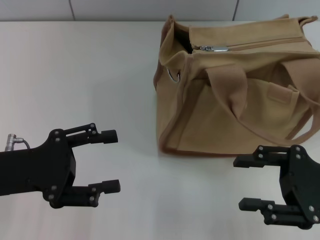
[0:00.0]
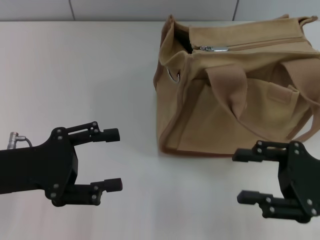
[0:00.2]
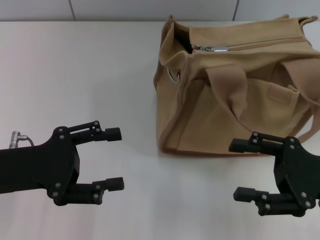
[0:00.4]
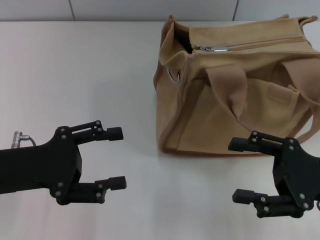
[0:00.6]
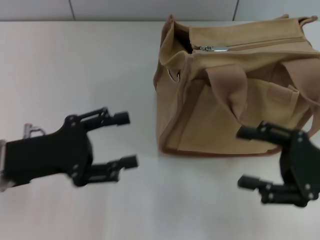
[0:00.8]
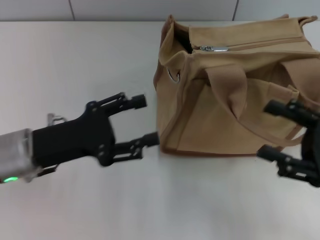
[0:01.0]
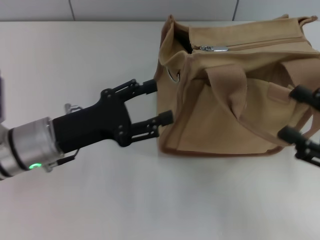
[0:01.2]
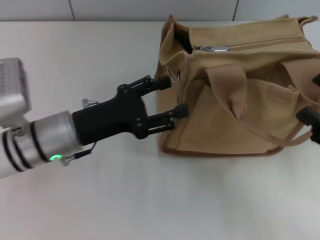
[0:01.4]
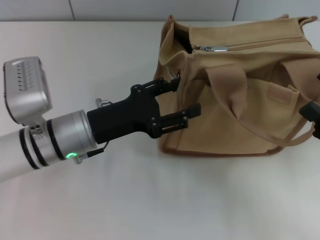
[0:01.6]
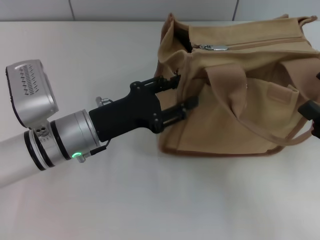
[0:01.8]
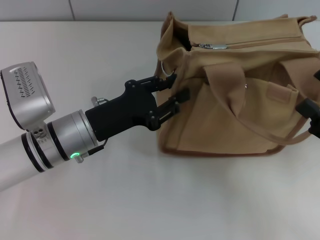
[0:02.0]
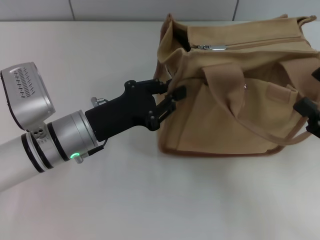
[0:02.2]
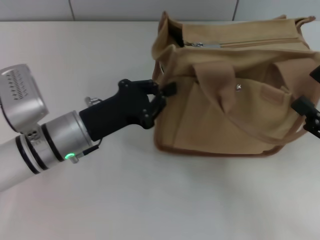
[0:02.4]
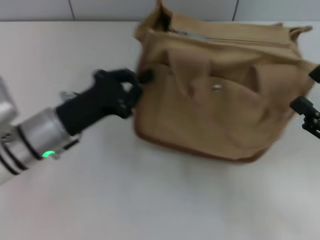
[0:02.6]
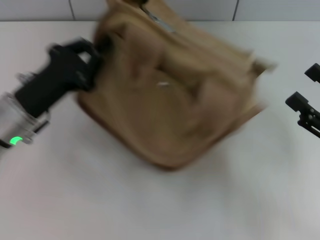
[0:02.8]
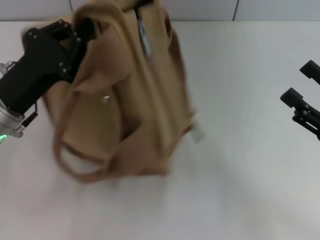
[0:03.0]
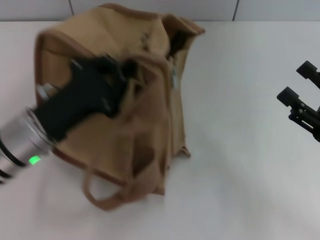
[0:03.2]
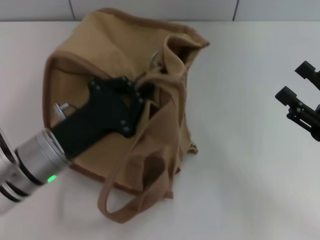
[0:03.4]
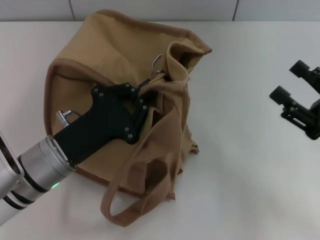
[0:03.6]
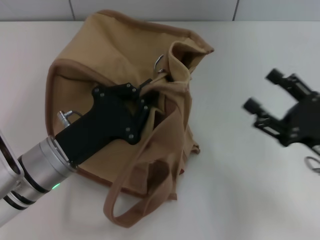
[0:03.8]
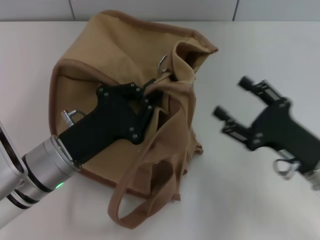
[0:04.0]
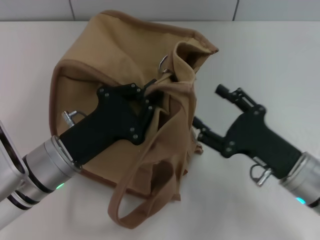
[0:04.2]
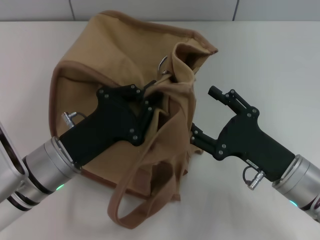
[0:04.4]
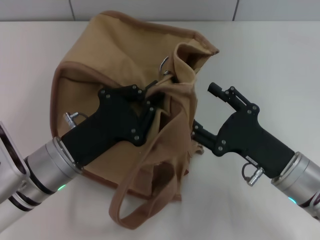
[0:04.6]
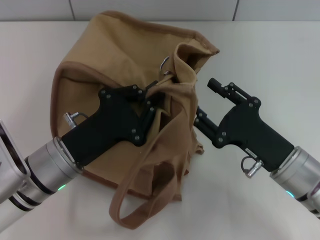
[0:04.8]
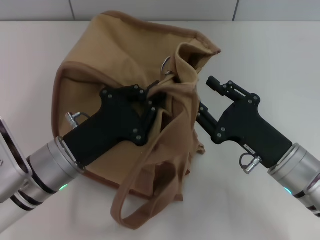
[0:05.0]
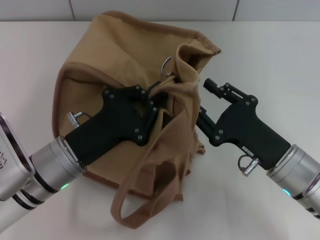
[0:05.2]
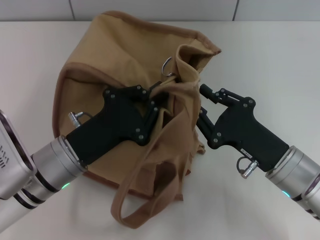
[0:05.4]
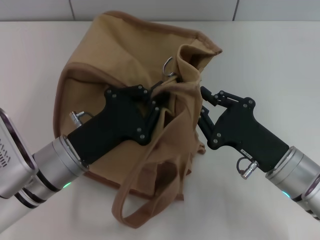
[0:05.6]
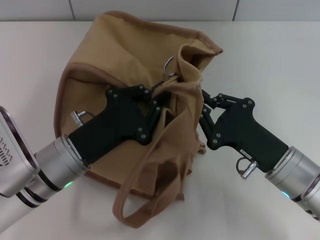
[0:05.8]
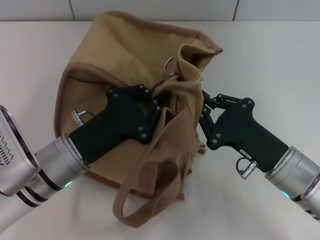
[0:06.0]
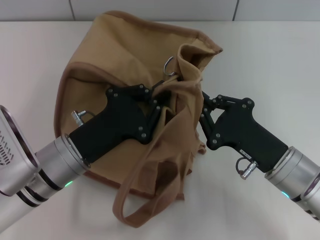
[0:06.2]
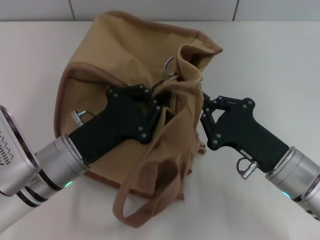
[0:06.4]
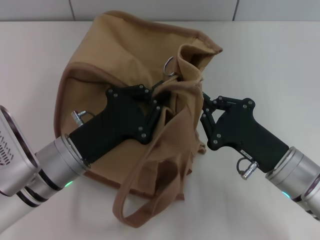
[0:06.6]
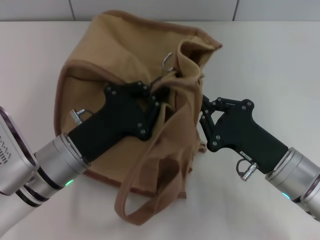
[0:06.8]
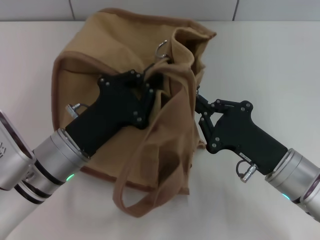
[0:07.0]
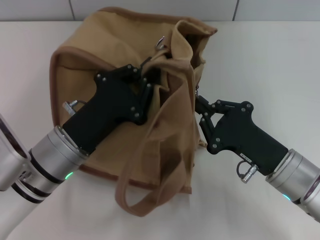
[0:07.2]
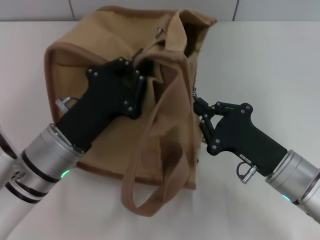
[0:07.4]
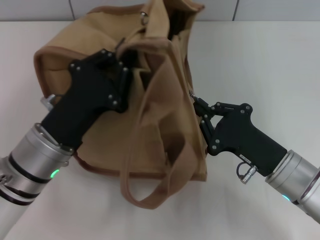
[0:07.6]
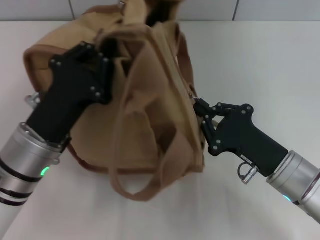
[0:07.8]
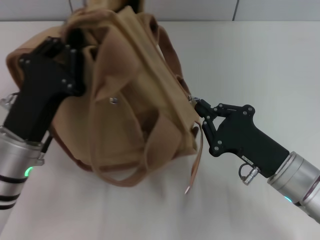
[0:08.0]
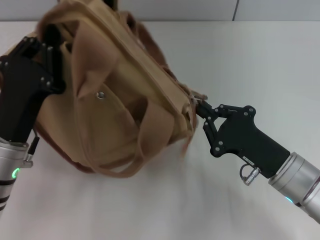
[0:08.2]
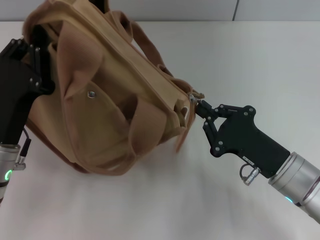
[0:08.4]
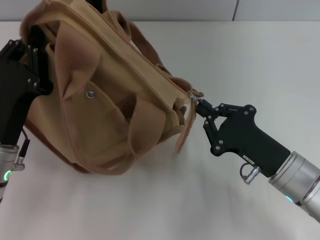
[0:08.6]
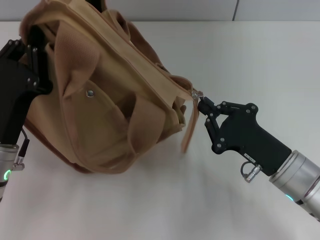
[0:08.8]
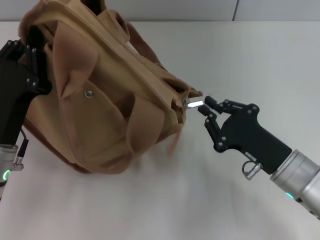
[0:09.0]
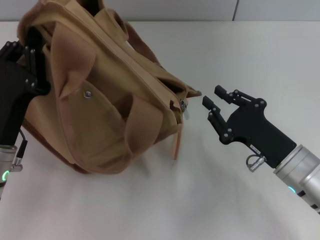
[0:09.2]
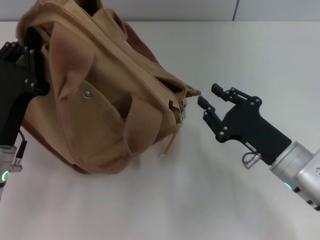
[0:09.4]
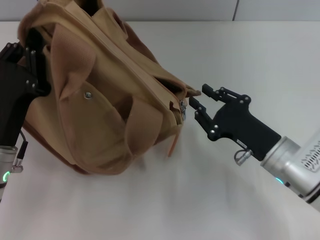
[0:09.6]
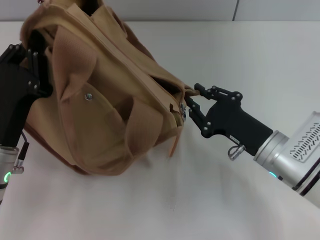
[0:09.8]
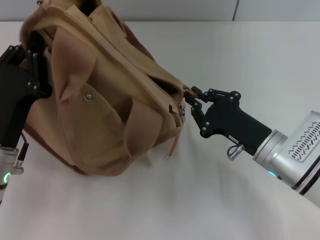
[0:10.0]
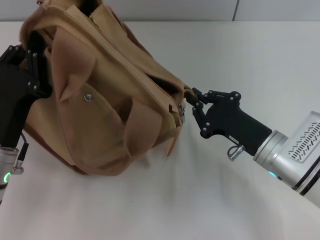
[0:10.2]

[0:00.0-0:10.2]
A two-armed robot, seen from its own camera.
Step, 0:00.0 to 0:09.0: Pull open the zipper with your right hand.
0:00.0 to 0:01.4: The left gripper goes approximately 10 cm to the right and forward.
0:01.4 to 0:03.0: The left gripper is displaced to the left by about 5 cm, and closes.
0:03.0 to 0:04.4: The right gripper goes about 10 cm to the left; the left gripper shifts about 5 cm to the right.
0:04.4 to 0:05.8: The right gripper closes up.
0:07.2 to 0:08.8: The left gripper is displaced to the left by some 5 cm.
0:08.8 to 0:10.2: The grippers stay close to where they were, moving slightly.

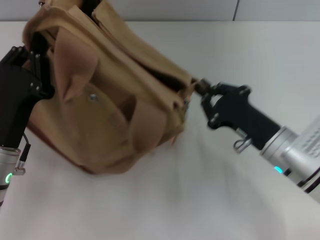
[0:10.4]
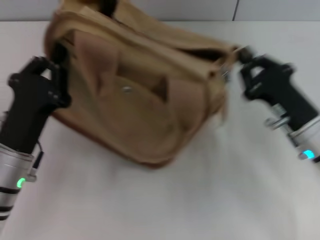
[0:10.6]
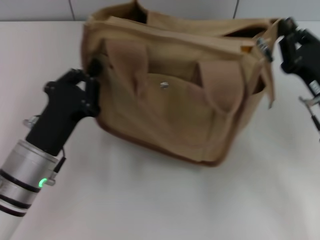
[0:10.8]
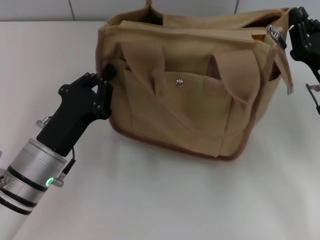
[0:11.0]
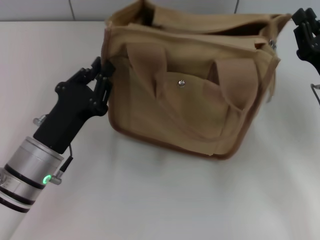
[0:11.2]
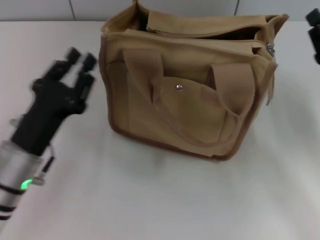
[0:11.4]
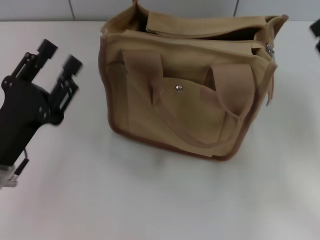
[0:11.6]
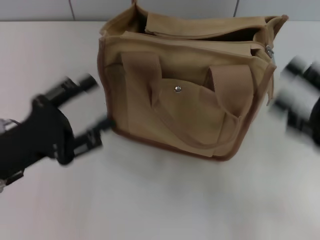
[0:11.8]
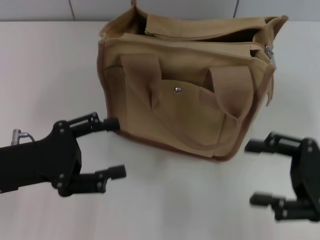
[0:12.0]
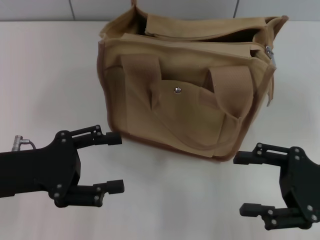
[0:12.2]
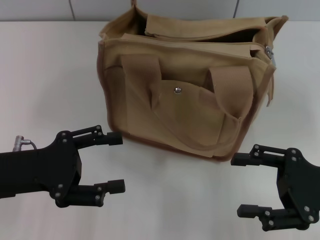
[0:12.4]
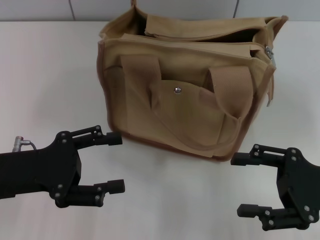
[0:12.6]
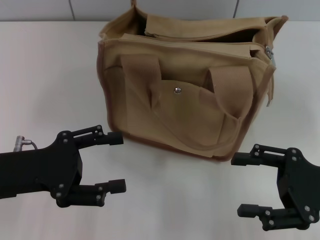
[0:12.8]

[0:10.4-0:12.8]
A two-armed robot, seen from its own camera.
0:10.4 to 0:11.6: The right gripper travels to the right and upward by approximately 10 cm.
0:11.6 to 0:12.8: The right gripper opens. Meanwhile the left gripper opens its fingers.

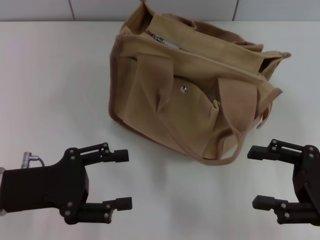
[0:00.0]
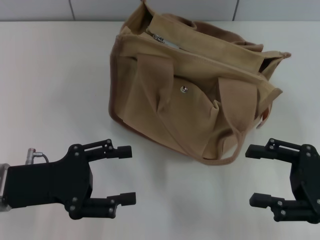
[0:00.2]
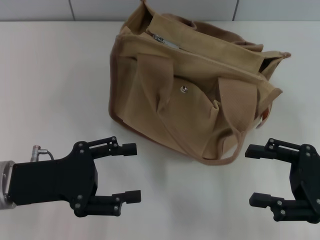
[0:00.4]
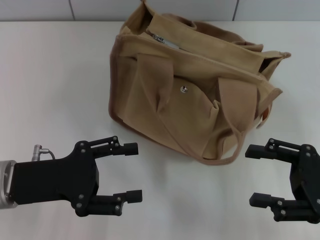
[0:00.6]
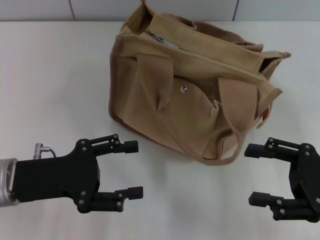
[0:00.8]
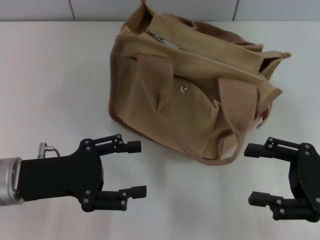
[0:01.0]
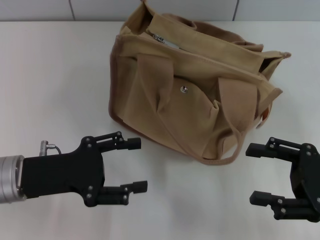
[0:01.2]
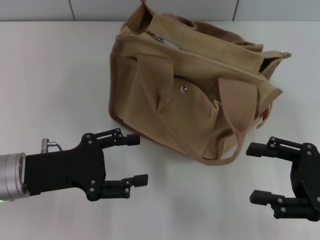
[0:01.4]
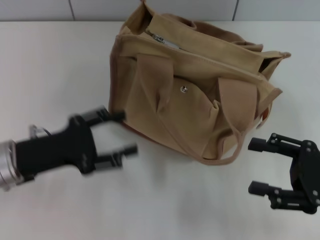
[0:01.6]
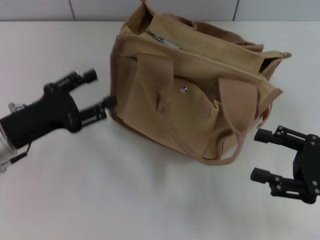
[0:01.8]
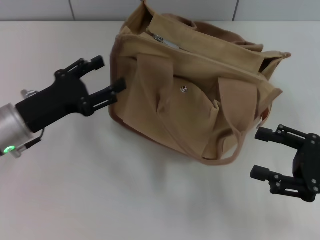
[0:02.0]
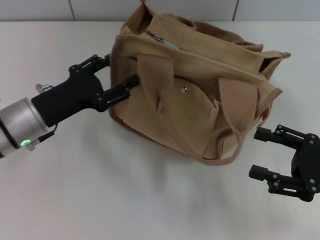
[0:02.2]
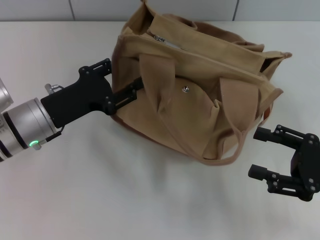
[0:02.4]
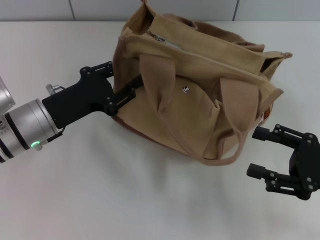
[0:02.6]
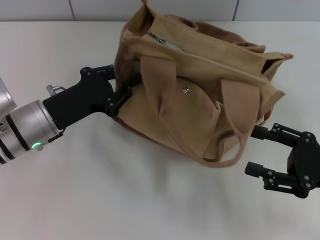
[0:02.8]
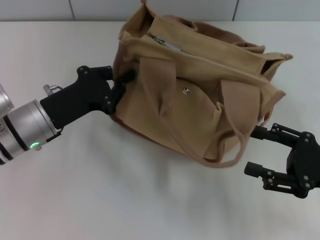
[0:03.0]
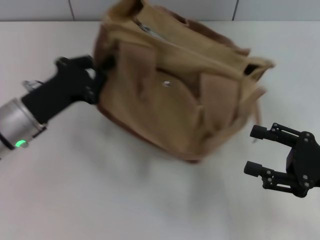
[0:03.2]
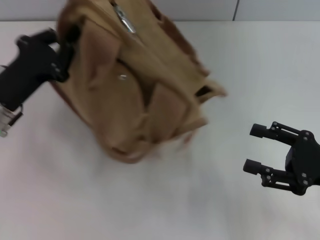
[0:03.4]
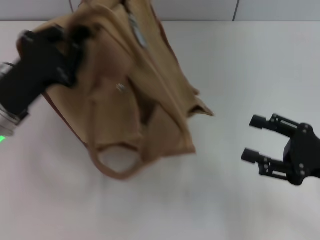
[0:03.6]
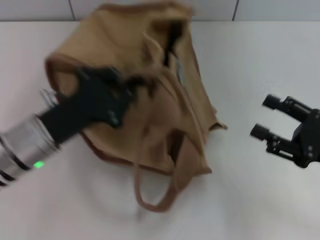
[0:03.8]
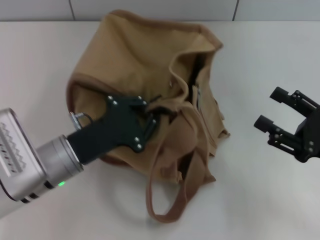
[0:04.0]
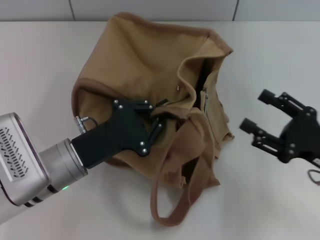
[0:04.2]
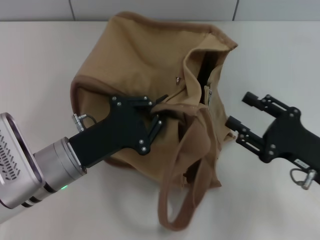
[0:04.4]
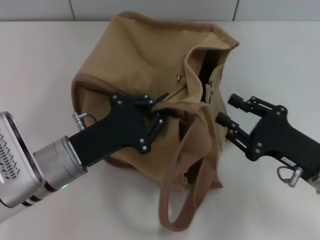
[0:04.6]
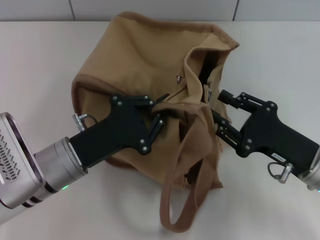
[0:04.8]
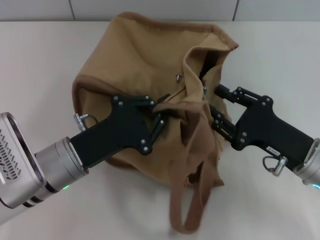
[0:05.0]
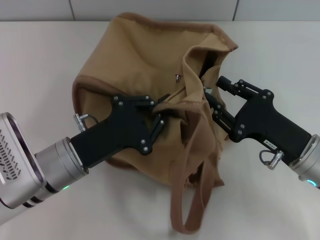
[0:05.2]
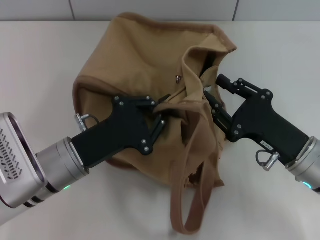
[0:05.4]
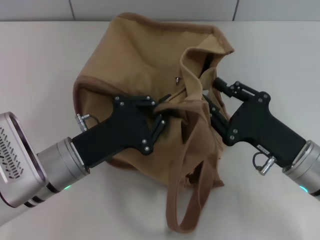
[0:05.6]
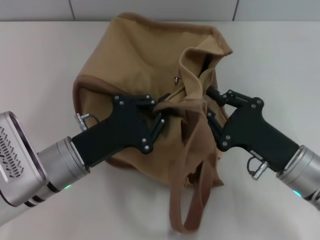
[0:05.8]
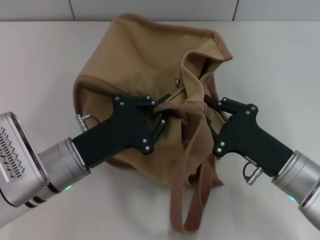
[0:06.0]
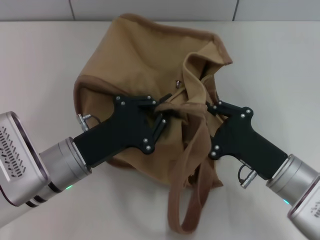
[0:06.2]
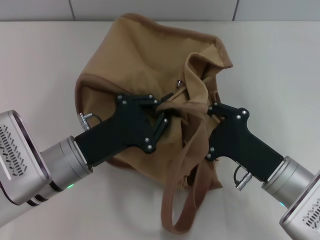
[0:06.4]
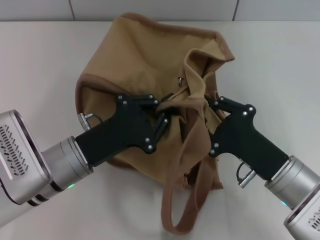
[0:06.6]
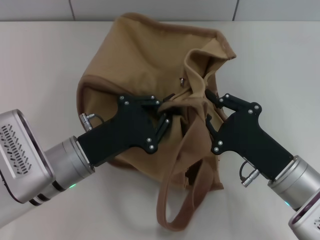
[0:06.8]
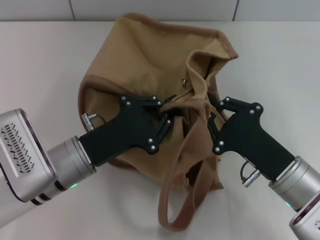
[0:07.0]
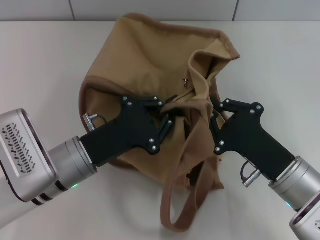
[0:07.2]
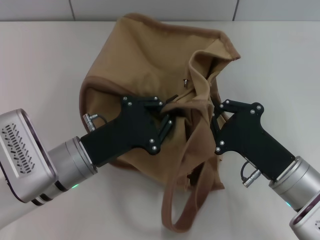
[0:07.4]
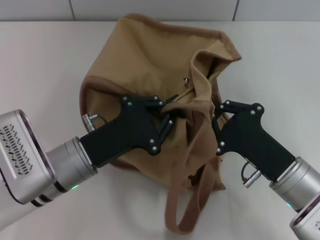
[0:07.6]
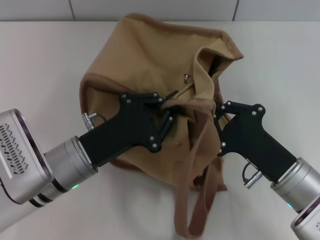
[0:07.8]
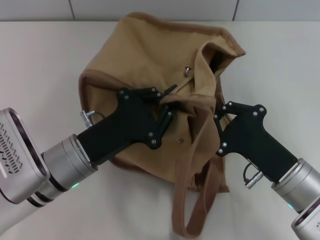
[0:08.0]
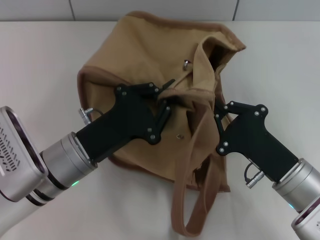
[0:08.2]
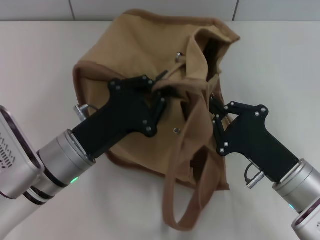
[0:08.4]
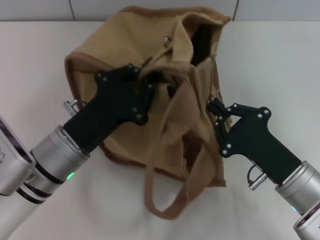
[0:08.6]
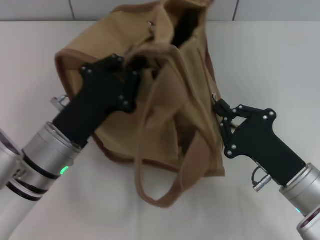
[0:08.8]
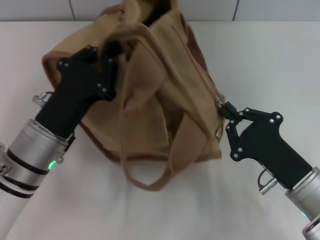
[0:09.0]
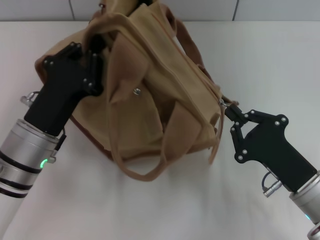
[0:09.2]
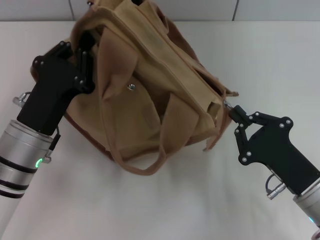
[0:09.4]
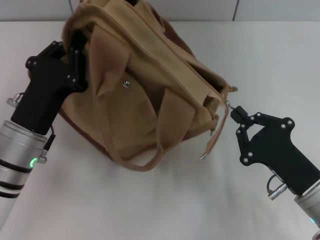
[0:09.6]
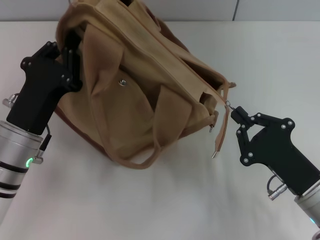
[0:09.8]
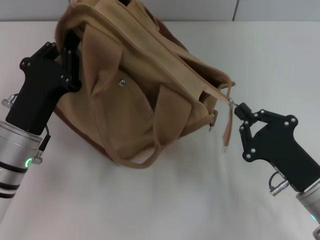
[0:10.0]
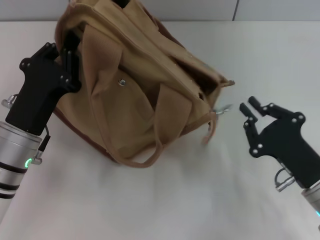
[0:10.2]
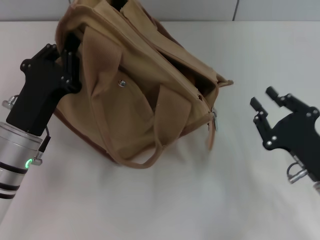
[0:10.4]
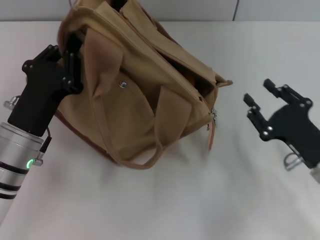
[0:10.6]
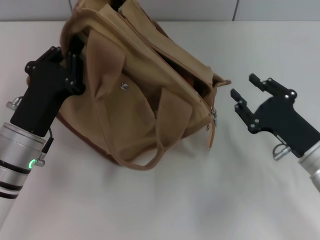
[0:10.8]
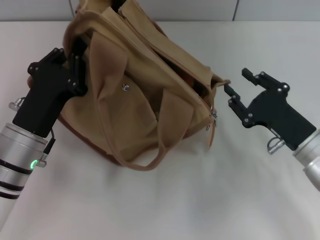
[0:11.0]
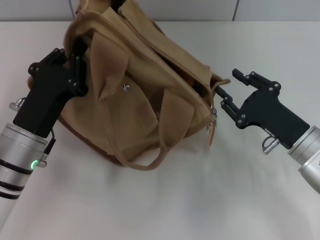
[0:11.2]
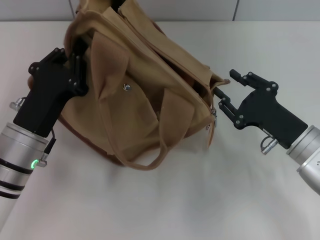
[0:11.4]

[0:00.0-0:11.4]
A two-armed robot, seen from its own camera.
Step, 0:00.0 to 0:10.0: Pull open the zipper with your right hand.
0:00.0 to 0:01.4: There are only small adjustments of the grippers.
0:01.4 to 0:02.8: The left gripper is displaced forward by roughly 5 cm, and closes.
0:02.8 to 0:04.2: The left gripper is displaced backward by approximately 5 cm, and closes.
0:04.2 to 0:05.6: The right gripper travels to the left by some 5 cm, and closes its fingers.
0:05.6 to 0:07.2: There are only small adjustments of the grippers.
0:10.0 to 0:11.4: The right gripper is displaced forward by some 5 cm, and opens up.
